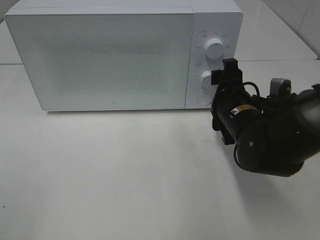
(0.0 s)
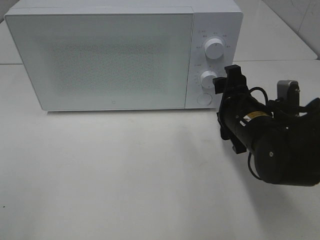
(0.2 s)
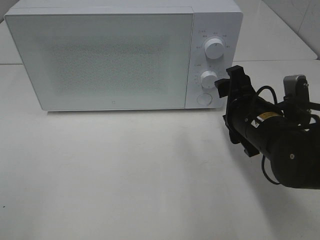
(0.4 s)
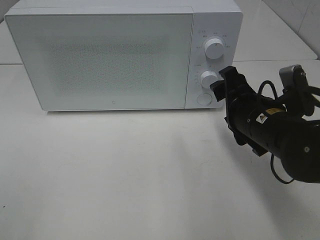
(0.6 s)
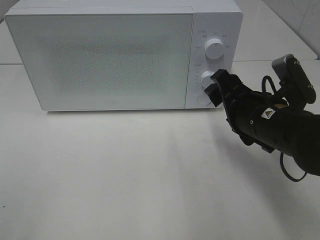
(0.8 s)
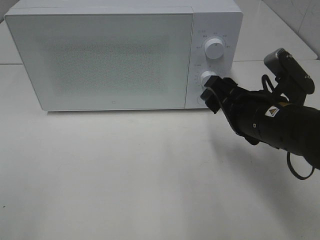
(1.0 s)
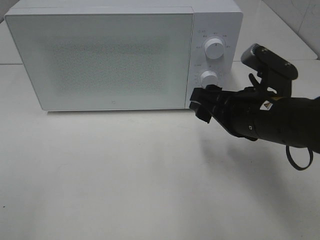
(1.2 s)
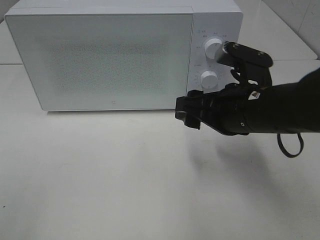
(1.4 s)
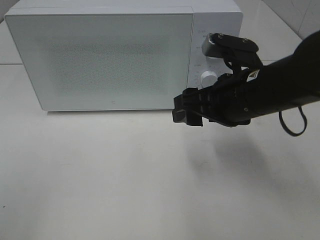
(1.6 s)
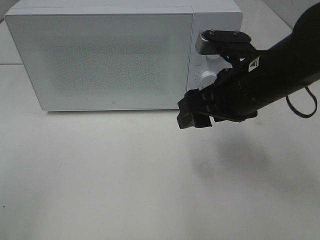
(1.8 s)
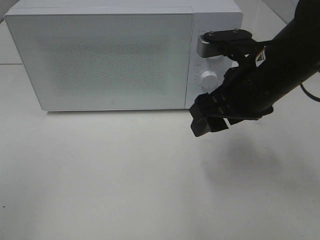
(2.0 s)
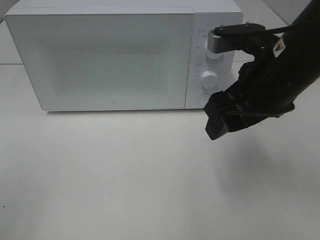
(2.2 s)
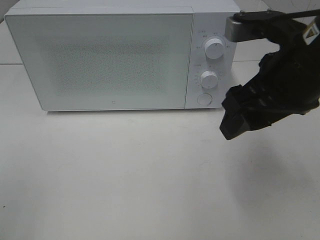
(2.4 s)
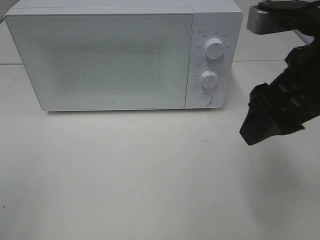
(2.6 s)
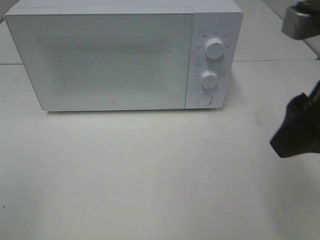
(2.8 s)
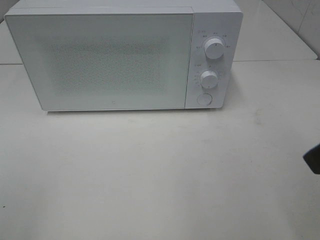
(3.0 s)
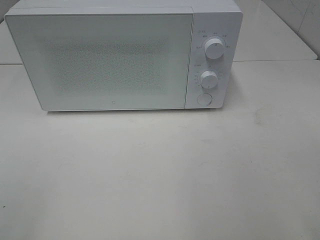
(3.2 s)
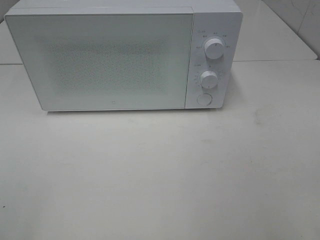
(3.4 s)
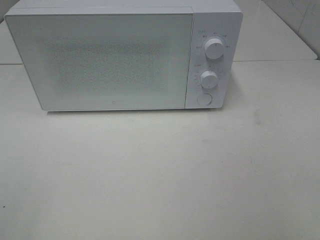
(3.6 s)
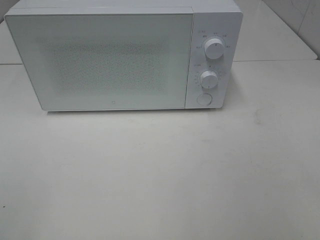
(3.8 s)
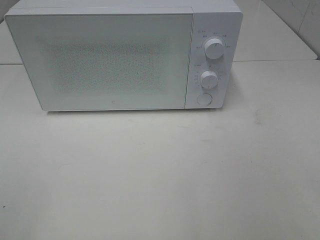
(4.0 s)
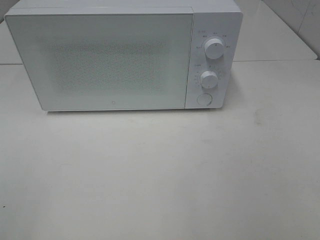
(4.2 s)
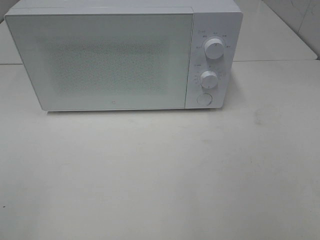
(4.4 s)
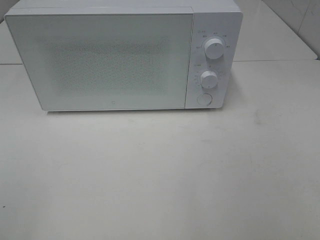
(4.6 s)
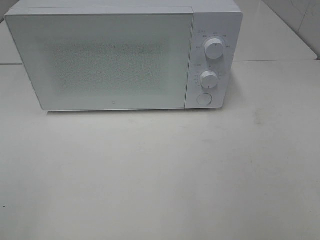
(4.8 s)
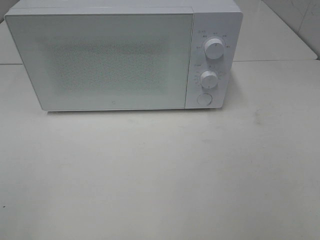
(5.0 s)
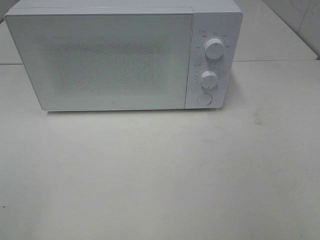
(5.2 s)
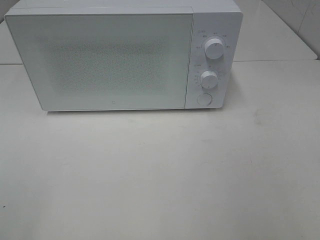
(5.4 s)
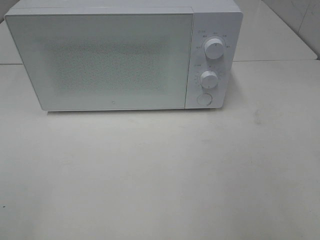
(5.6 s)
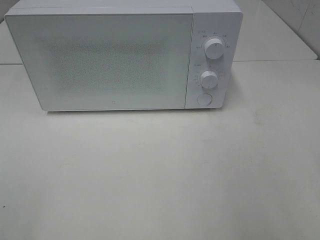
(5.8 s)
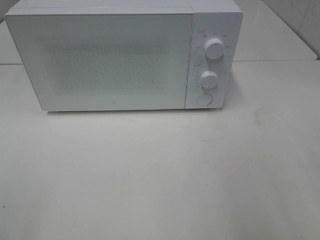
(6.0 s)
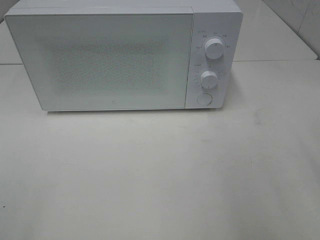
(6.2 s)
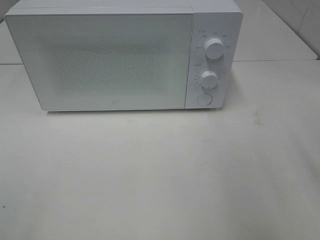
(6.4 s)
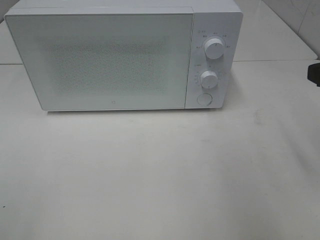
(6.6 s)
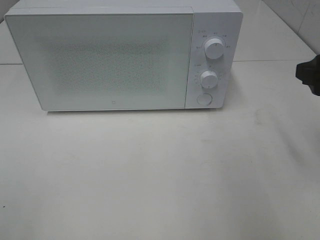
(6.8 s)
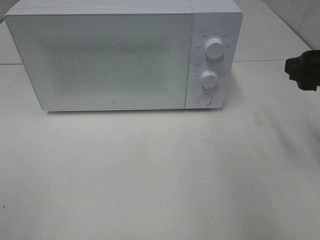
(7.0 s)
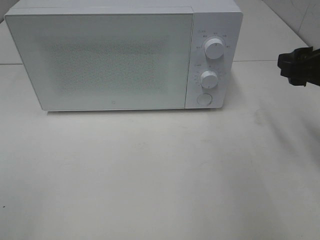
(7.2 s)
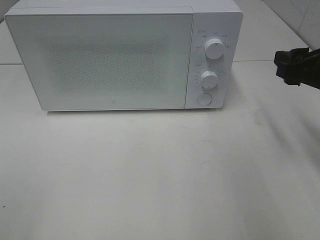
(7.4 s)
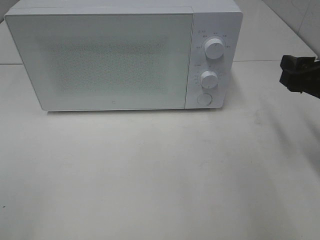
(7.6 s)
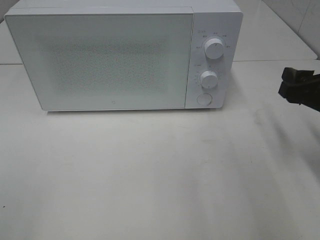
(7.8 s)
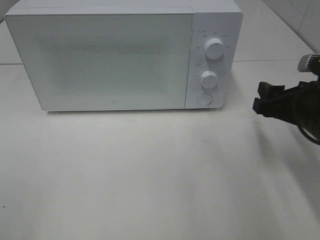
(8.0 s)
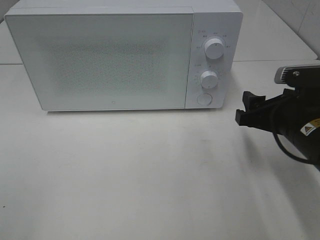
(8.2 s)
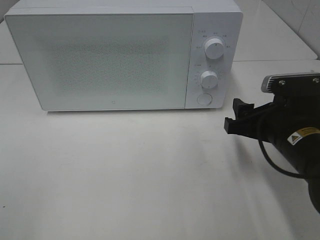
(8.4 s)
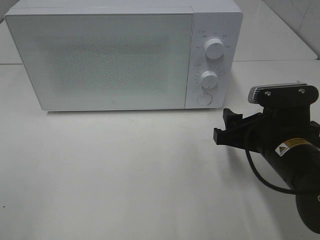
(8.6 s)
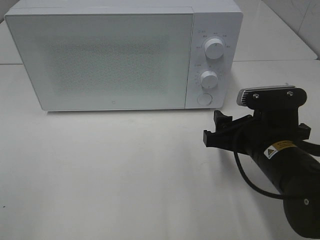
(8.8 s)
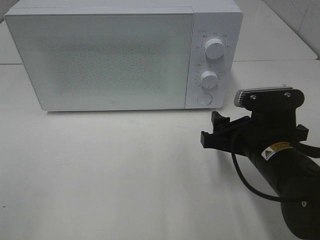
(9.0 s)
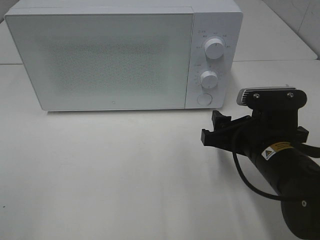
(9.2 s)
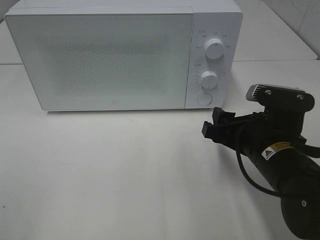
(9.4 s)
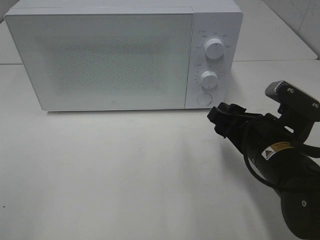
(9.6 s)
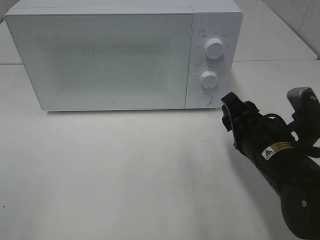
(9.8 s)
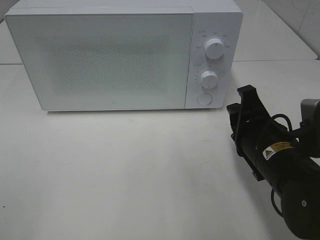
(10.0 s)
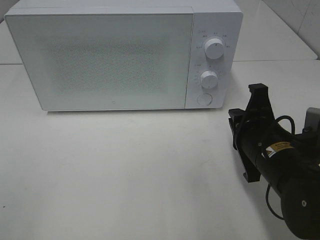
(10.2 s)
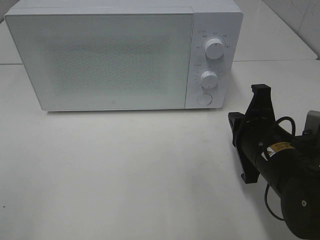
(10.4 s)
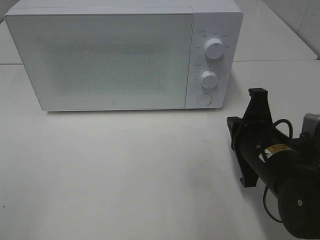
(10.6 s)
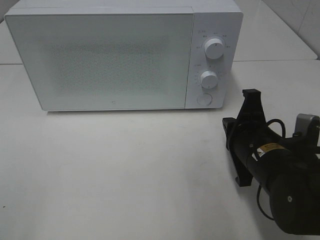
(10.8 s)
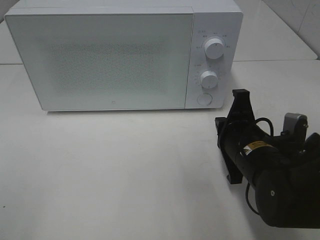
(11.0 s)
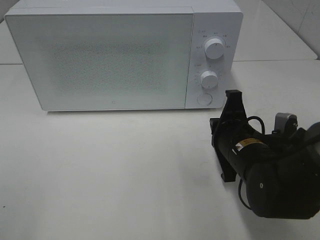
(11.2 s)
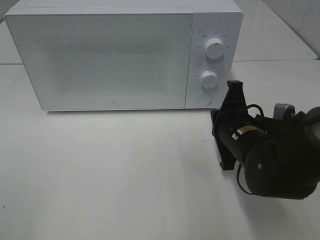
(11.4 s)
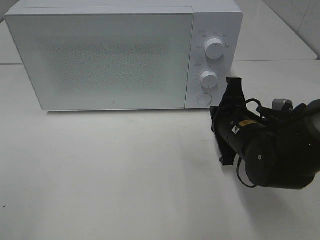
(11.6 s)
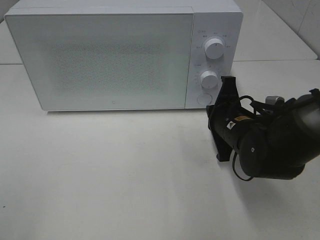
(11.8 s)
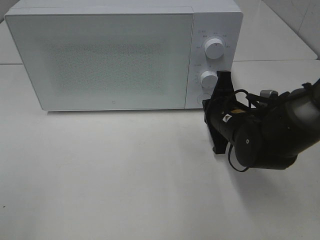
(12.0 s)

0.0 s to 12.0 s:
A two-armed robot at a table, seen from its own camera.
Task of the whole recording: Heat the burger.
0.0 to 1.6 s: The right gripper travels upward by some 10 cm.
1.6 to 3.0 s: The right gripper travels backward, upward and to the right by approximately 20 cm.
3.0 to 4.4 s: The right gripper goes some 15 cm backward and to the right.
6.0 to 7.6 s: The right gripper goes approximately 15 cm forward and downward.
7.6 to 9.0 s: The right gripper goes approximately 15 cm to the left and downward.
9.0 to 10.4 s: The right gripper closes up.
10.4 to 12.0 s: The right gripper travels forward by approximately 10 cm.

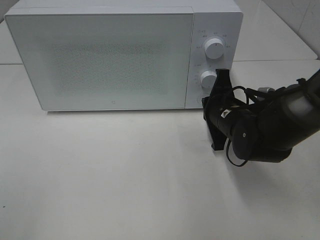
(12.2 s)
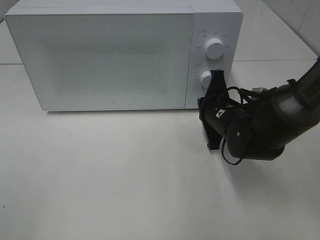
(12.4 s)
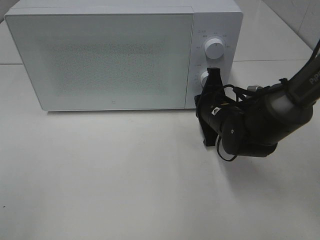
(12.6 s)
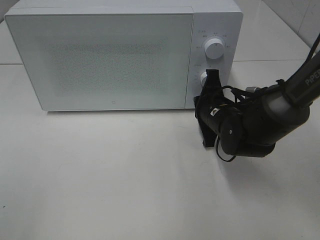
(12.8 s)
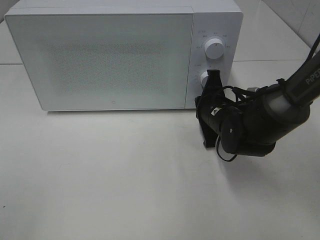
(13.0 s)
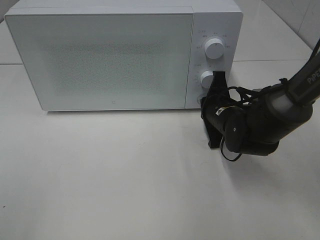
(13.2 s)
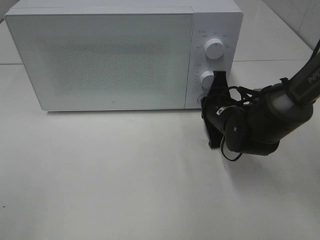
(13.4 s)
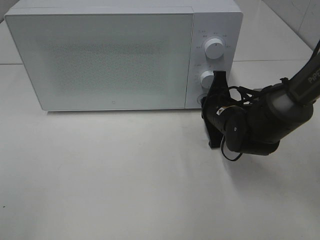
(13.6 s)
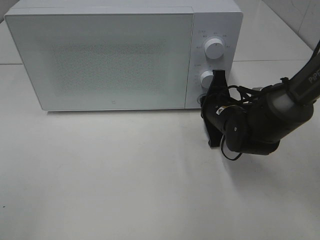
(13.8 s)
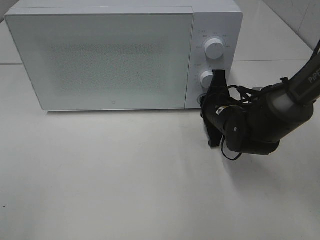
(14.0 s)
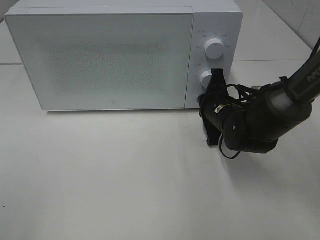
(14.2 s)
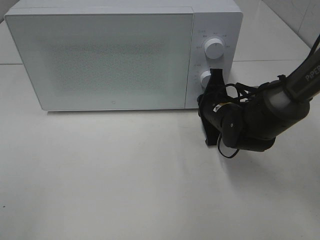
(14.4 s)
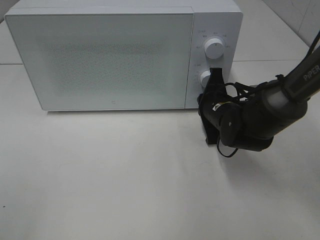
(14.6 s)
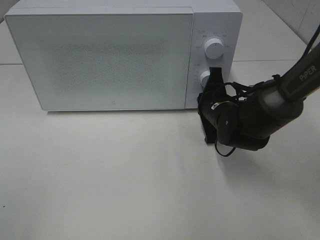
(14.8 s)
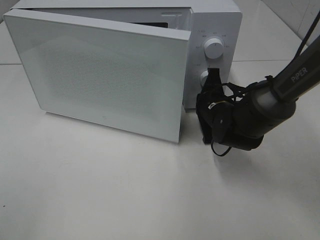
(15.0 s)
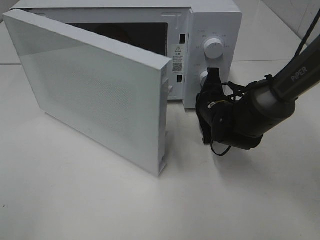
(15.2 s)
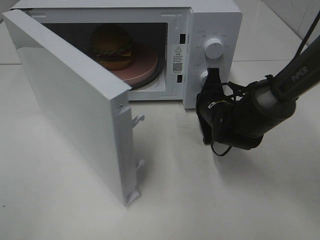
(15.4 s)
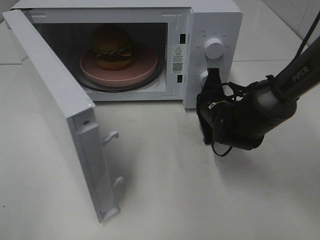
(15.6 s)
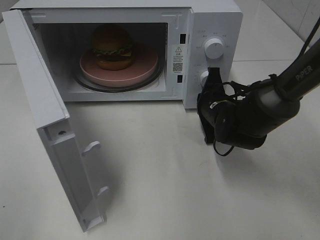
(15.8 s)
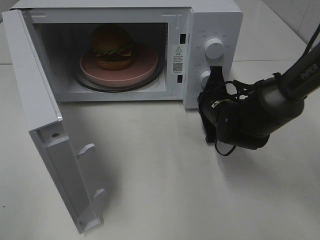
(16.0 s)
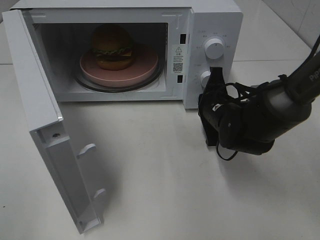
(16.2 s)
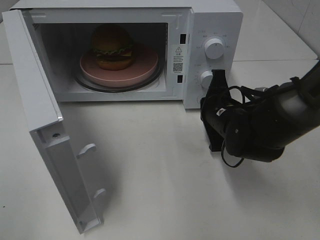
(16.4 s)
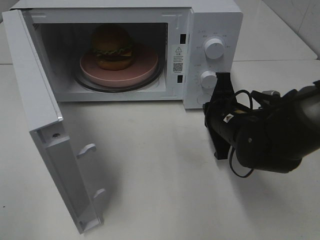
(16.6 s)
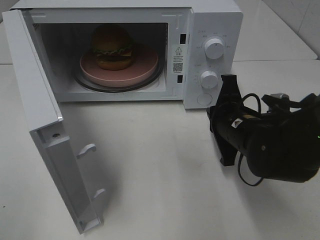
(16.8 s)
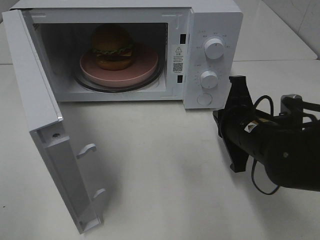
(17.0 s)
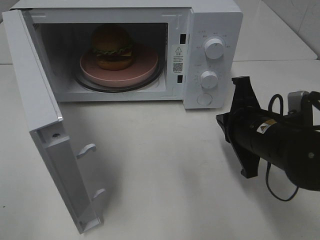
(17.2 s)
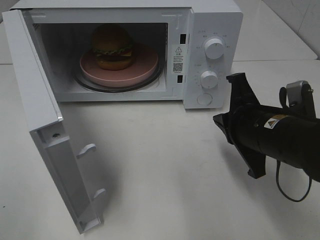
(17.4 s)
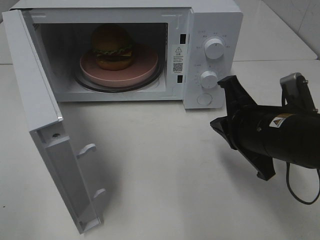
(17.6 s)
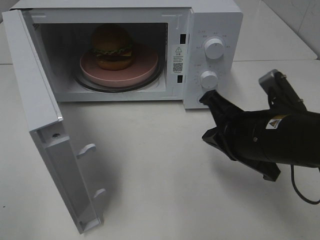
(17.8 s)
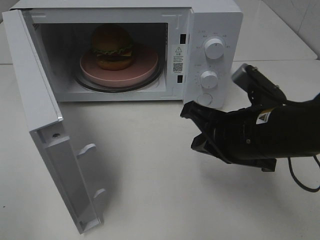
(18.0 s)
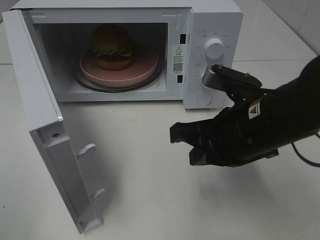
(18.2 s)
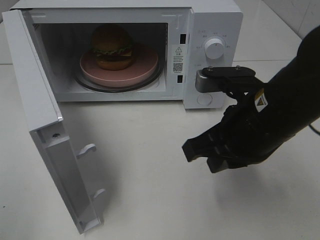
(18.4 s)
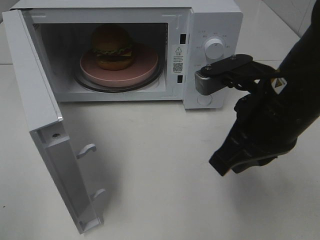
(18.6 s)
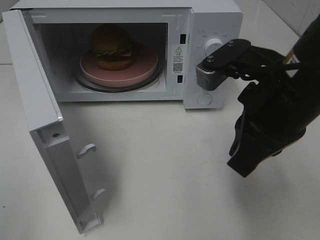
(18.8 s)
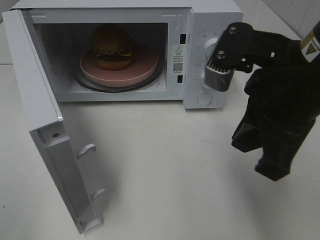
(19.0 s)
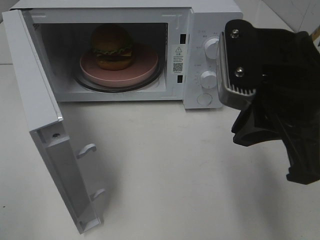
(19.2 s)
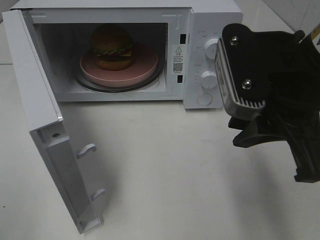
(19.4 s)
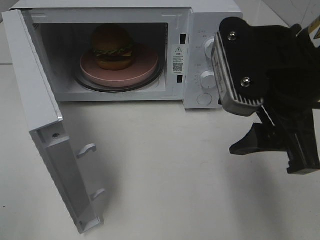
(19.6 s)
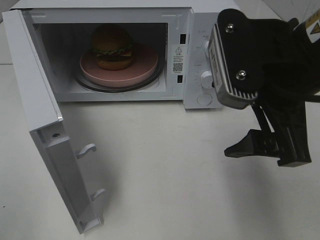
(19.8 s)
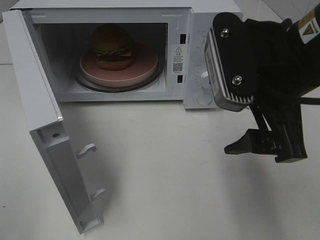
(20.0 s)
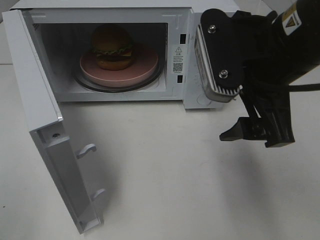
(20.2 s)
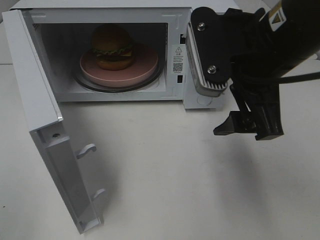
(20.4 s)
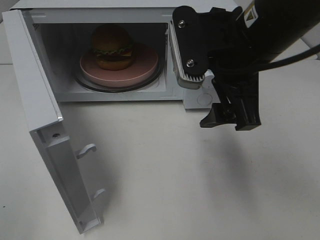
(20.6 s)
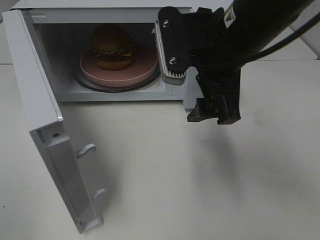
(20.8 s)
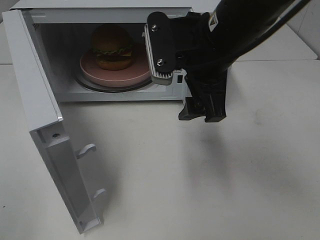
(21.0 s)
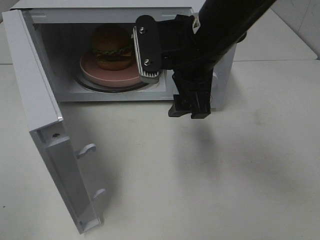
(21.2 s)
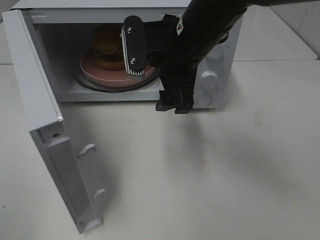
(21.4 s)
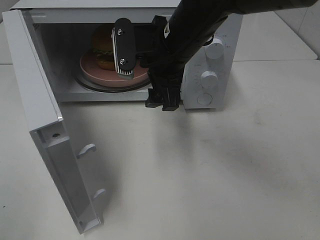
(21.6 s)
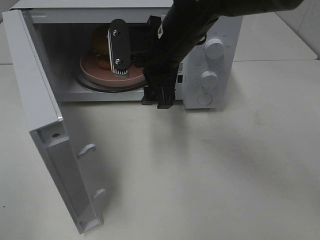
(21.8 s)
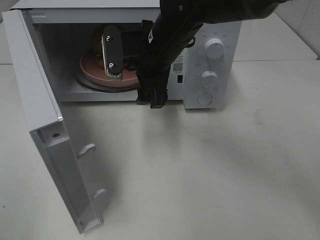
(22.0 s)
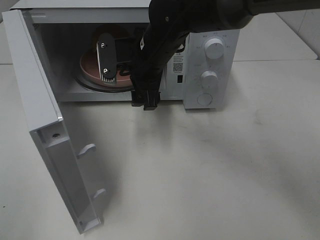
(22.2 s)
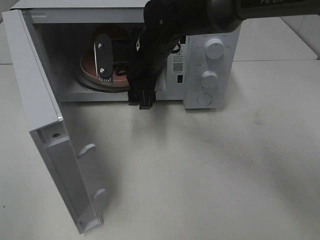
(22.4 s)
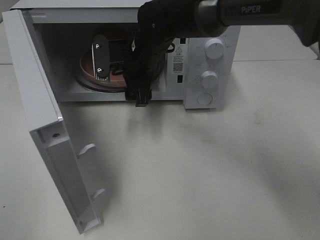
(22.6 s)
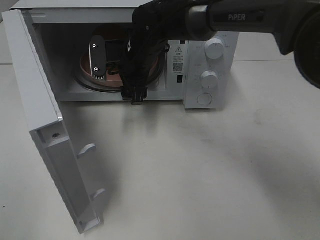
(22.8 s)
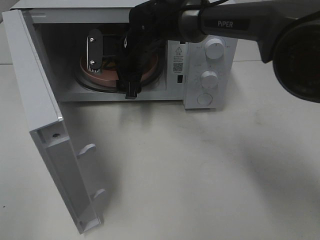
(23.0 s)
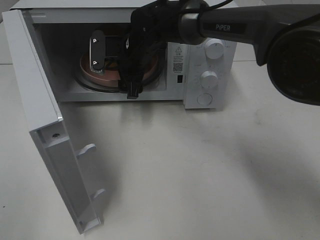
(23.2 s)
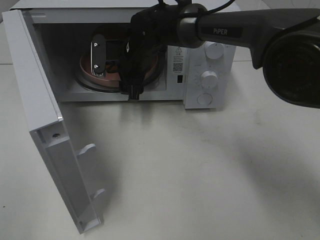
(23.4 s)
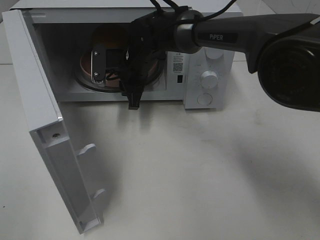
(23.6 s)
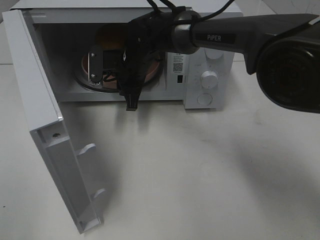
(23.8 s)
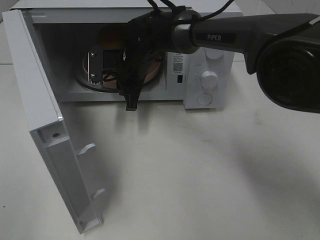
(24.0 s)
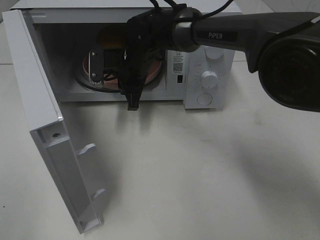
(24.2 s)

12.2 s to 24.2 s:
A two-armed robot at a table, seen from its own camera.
Task of the whole recording: Heat the burger.
Step, 12.2 to 16.6 s: Right hand: press the switch.
12.2 to 13.8 s: The grippers move only a little.
15.2 to 16.6 s: The right gripper goes about 5 cm backward.
16.6 to 18.2 s: The right gripper goes about 10 cm upward and backward.
18.2 to 19.8 s: The right gripper heads upward, covering roughly 10 cm, and opens.
19.8 to 21.2 s: The right gripper shifts about 15 cm forward and to the left.
21.2 to 22.6 s: The right gripper moves forward, to the left and downward, roughly 15 cm.
22.6 to 24.2 s: The right gripper closes its fingers.
